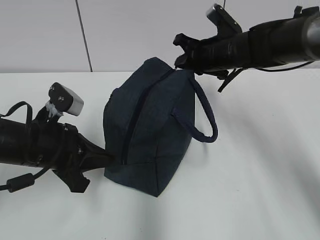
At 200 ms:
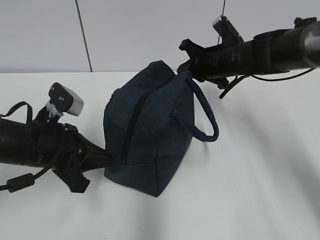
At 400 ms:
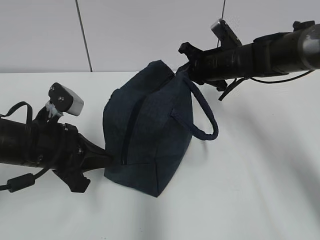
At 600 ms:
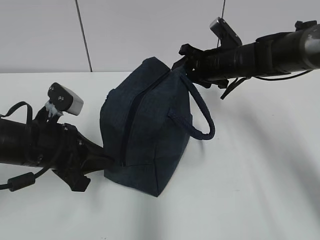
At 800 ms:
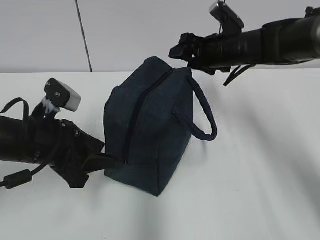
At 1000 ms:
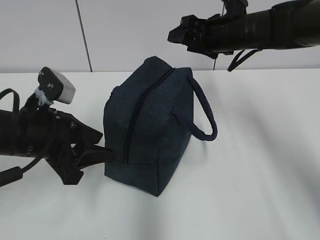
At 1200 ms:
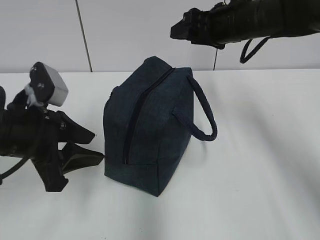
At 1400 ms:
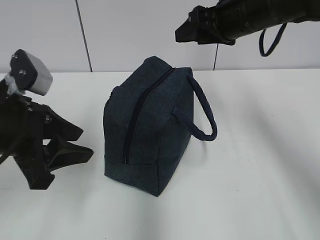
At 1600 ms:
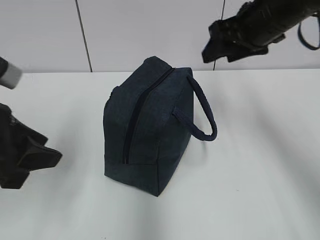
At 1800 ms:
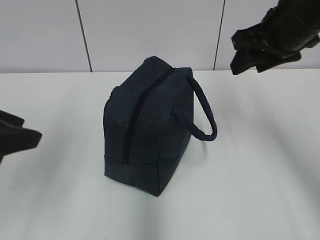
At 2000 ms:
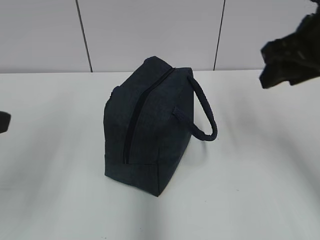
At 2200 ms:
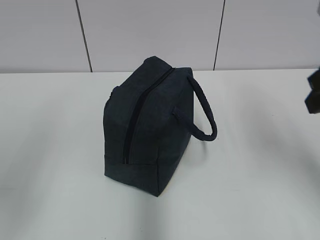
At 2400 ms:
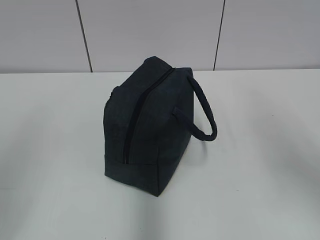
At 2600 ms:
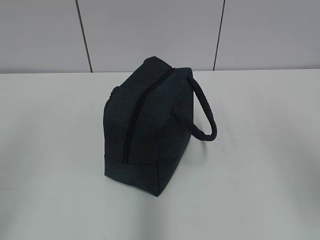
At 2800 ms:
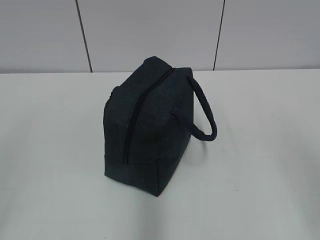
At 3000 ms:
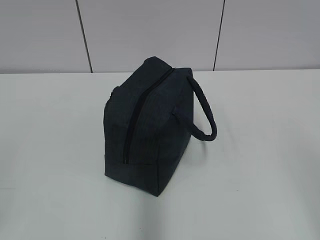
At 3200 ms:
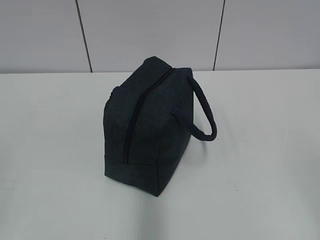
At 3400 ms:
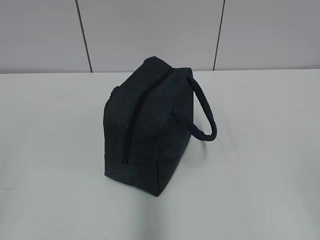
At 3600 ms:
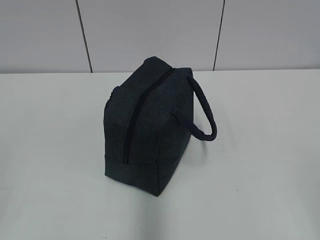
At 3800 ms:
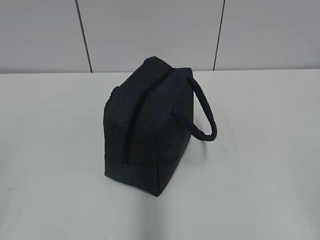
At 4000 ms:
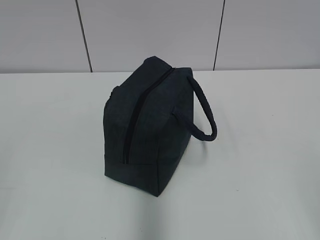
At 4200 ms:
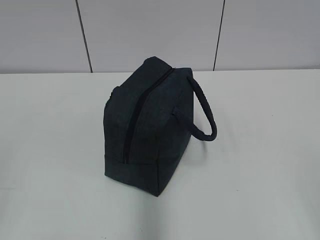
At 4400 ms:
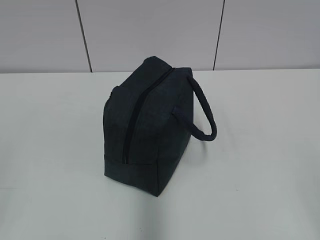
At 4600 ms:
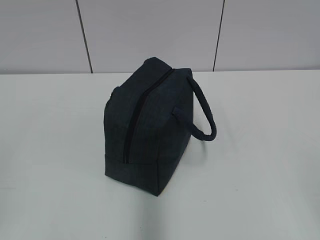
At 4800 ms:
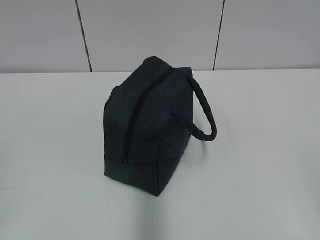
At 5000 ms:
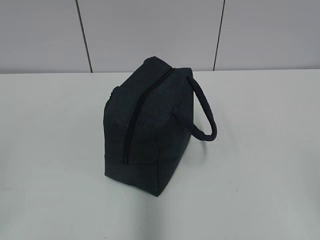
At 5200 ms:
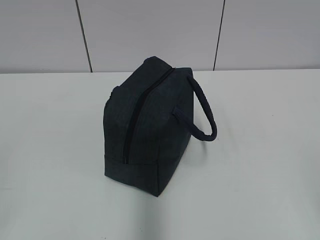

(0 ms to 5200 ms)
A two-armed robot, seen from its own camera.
0 ms - 1800 ms: The left gripper travels upward, backward and to the left by some 15 cm, and opens. Meanwhile the right gripper heads backward, upward and to the right, covering some 15 cm, and opens.
1800 ms - 3400 ms: The right gripper travels backward by about 35 cm, while the left gripper moves backward and to the left, roughly 20 cm.
